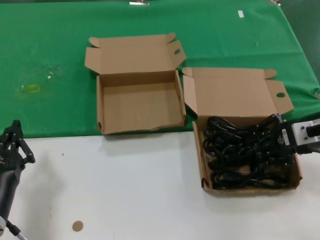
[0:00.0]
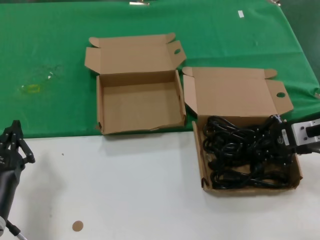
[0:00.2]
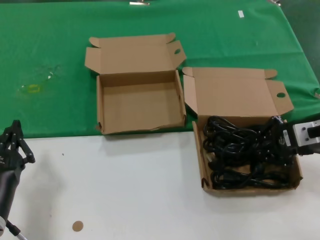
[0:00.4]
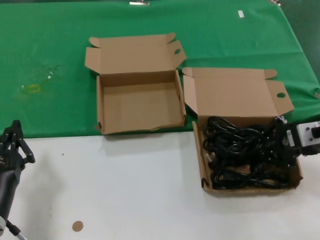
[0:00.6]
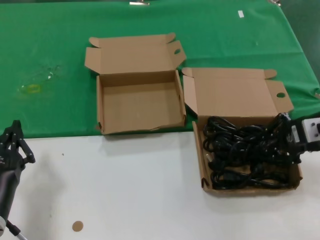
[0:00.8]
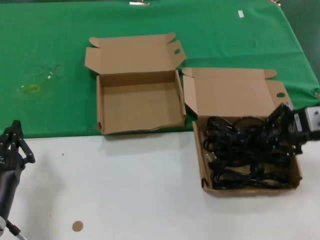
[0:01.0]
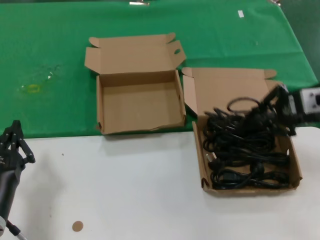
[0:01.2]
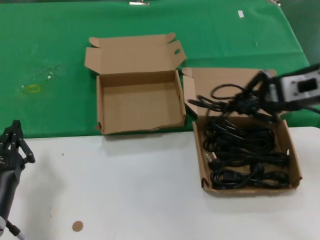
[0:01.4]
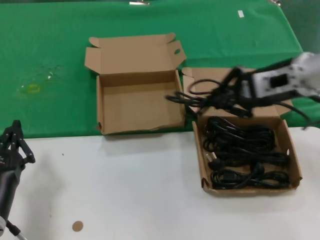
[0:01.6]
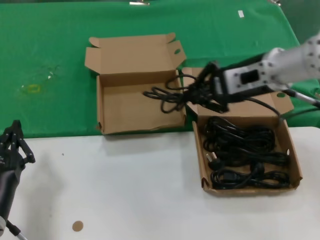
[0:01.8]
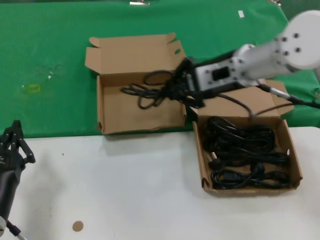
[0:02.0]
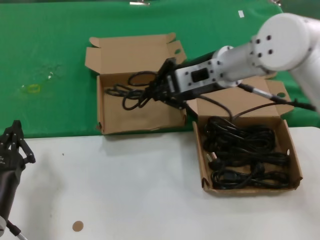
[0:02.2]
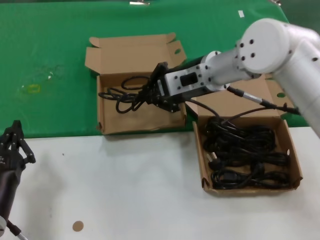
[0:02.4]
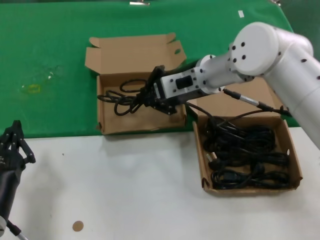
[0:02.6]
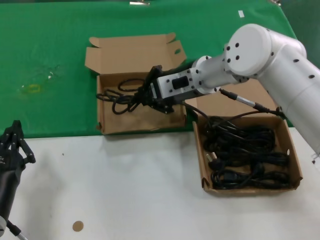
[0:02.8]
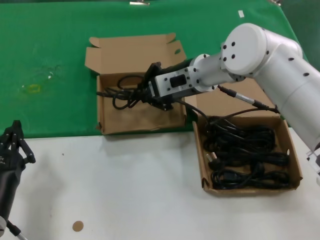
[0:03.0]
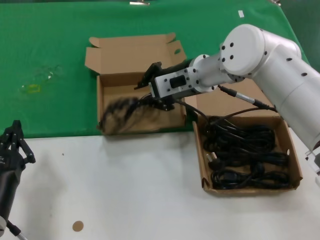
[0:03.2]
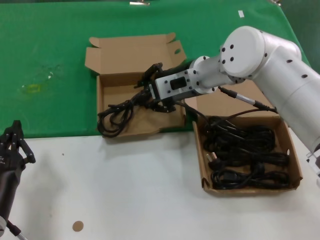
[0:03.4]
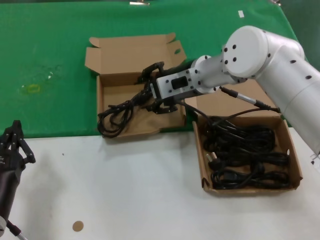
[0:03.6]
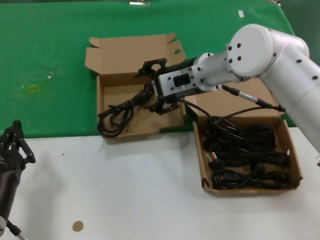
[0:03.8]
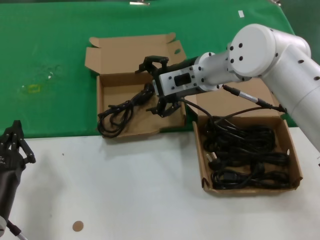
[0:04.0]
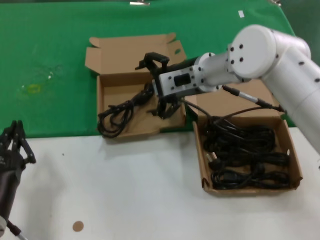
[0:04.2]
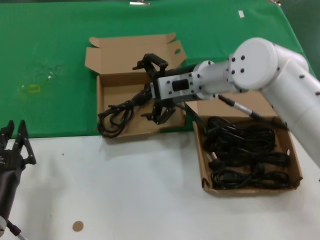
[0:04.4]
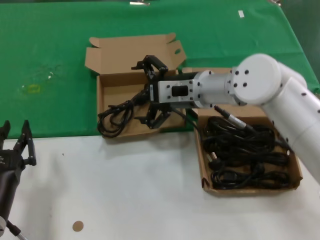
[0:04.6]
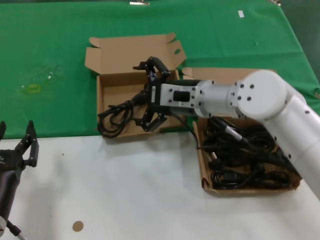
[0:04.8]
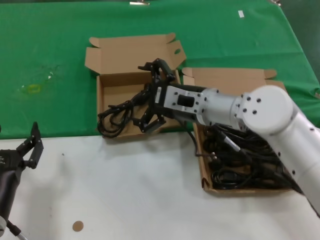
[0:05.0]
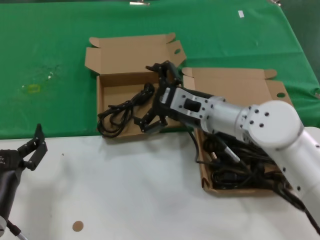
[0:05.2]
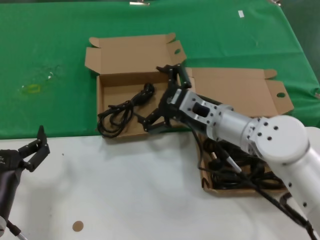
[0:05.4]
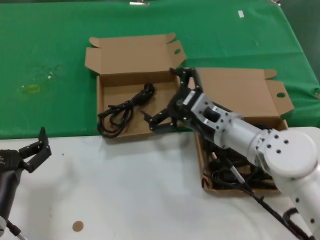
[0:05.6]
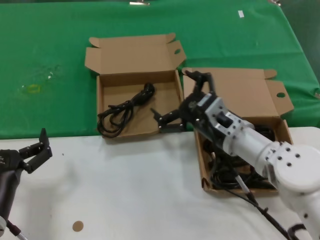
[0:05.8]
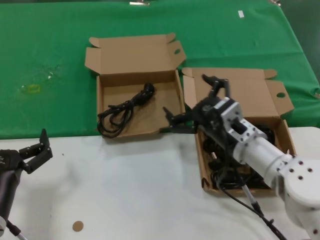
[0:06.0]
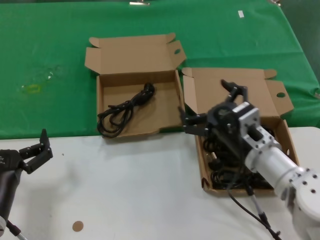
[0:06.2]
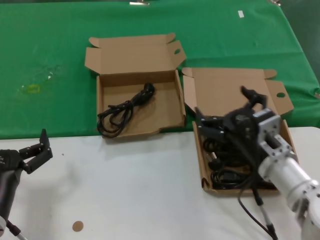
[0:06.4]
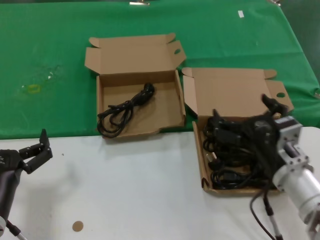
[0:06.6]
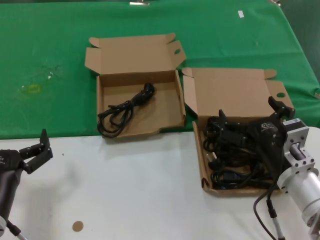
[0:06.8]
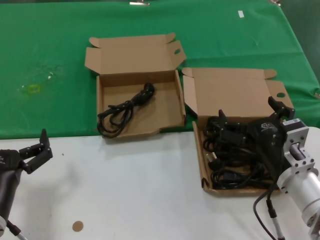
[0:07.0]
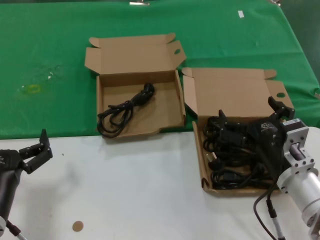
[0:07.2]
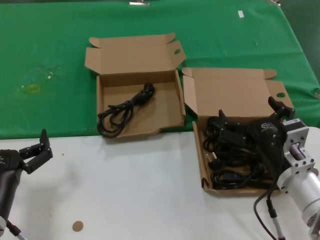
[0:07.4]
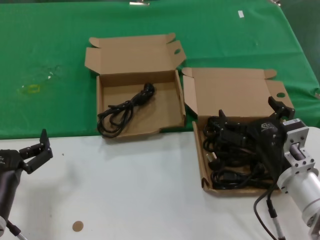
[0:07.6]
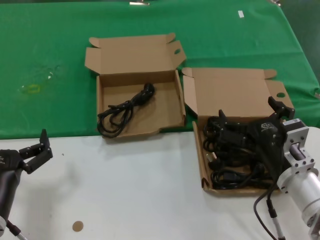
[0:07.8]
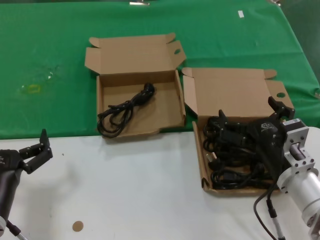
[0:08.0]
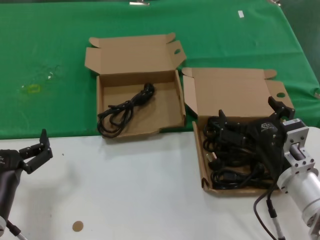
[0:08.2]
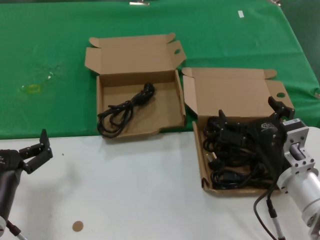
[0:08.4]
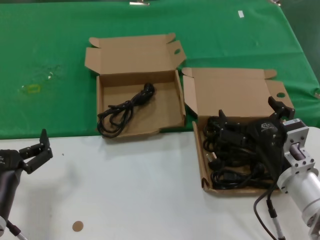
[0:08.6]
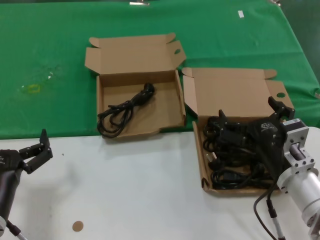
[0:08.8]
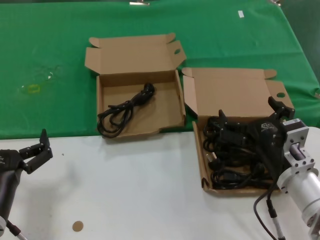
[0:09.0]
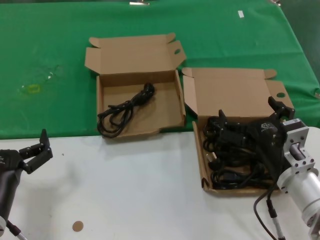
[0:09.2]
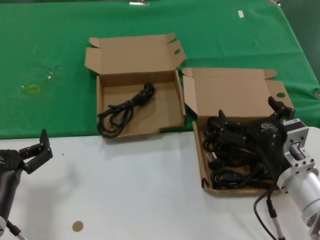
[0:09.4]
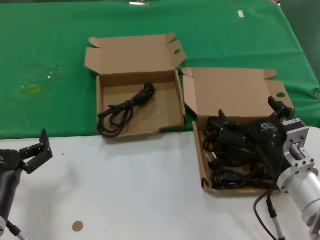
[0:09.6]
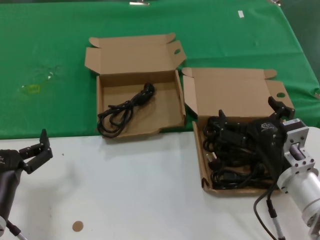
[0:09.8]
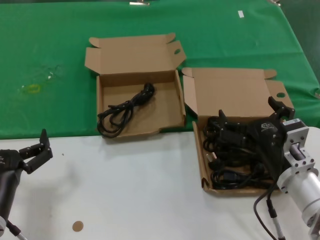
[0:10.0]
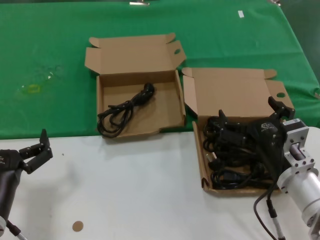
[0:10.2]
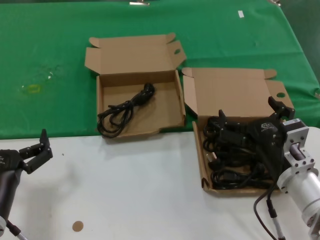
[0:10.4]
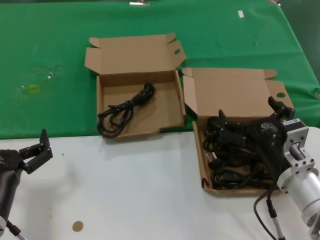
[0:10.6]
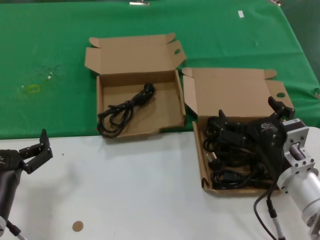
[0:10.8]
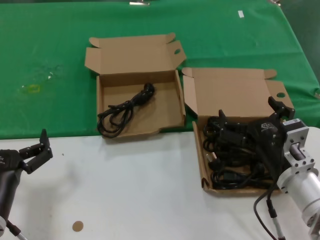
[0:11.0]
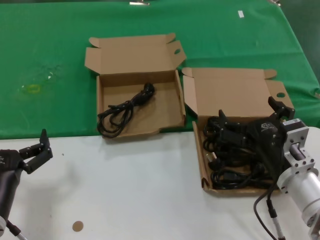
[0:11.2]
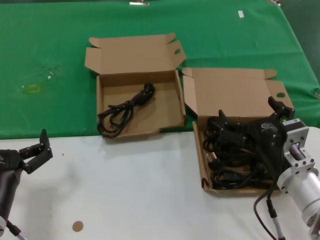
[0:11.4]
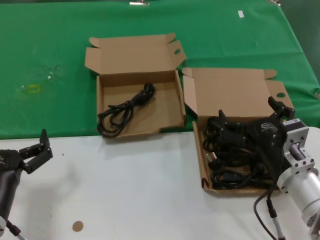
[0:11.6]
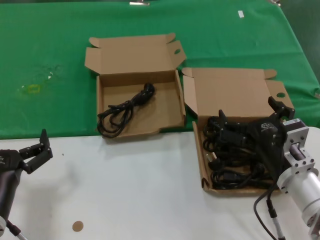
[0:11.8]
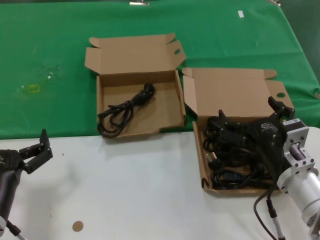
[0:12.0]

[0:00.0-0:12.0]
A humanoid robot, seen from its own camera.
Task of the whole recording: take the parts from the box containing them and put them into an empty box.
Step, 0:00.6 to 0:03.2: Place the data cable in the another box.
0:00.0 to 0:01.6: The right hand heads upward and to the left, covering about 10 cm.
0:01.6 to 0:03.0: The right hand is displaced to the left and forward by about 20 cm.
0:03.0 to 0:04.4: There are only small adjustments of the hands.
0:04.4 to 0:06.0: The right hand goes some 20 cm downward, backward and to the right.
0:06.0 to 0:07.6: The right hand shifts roughly 10 cm backward and to the right.
0:07.6 to 0:12.0: Neither hand changes place.

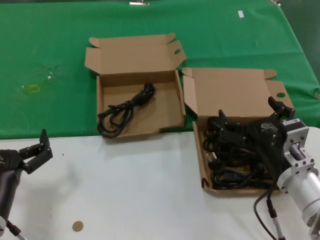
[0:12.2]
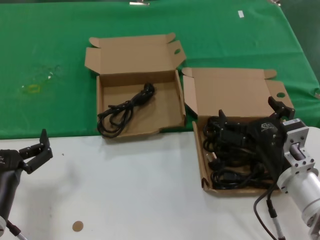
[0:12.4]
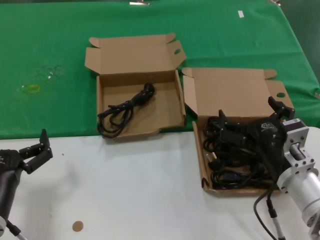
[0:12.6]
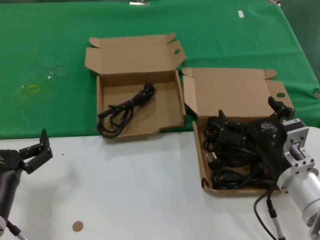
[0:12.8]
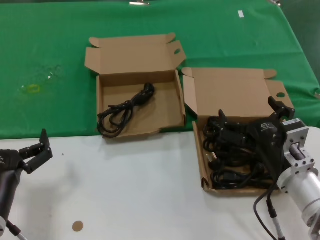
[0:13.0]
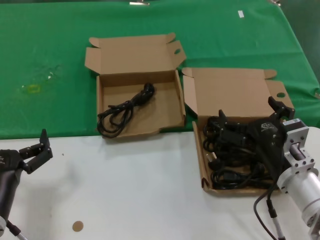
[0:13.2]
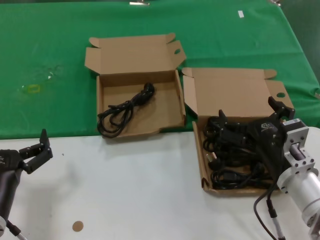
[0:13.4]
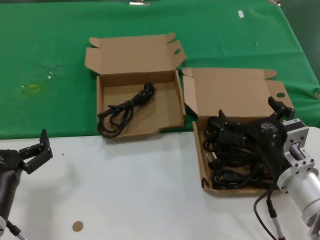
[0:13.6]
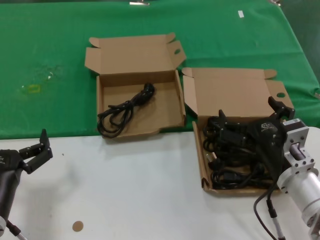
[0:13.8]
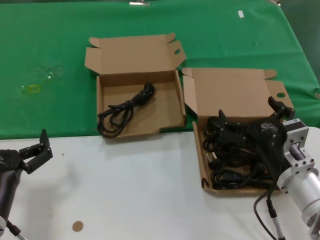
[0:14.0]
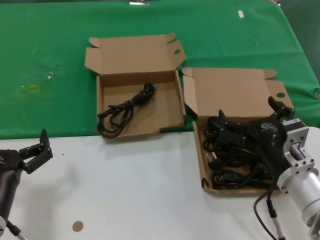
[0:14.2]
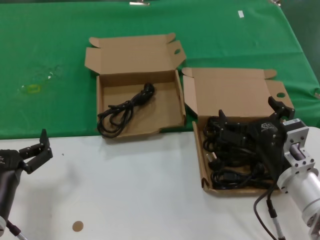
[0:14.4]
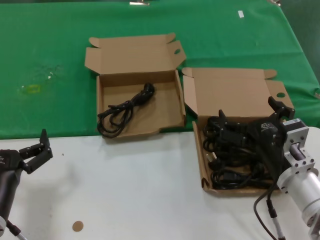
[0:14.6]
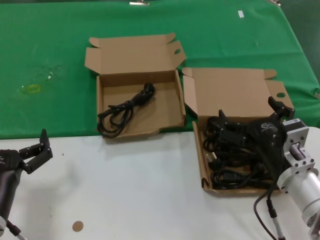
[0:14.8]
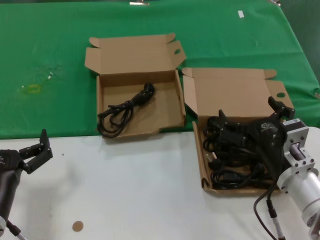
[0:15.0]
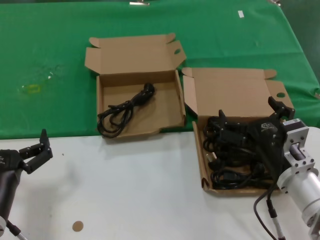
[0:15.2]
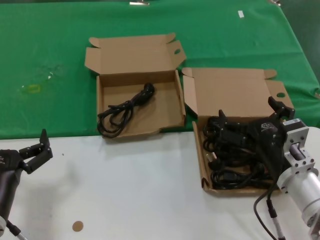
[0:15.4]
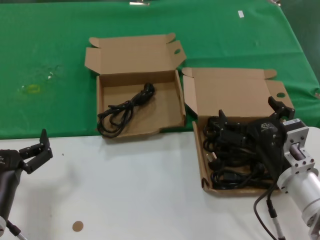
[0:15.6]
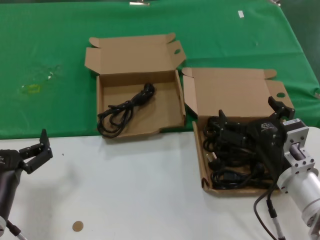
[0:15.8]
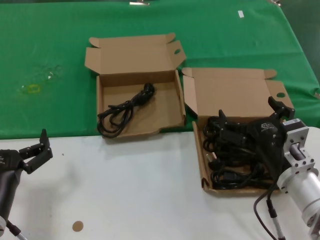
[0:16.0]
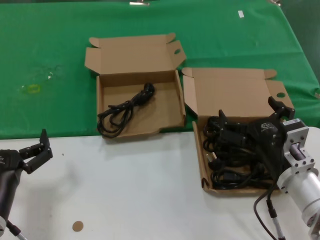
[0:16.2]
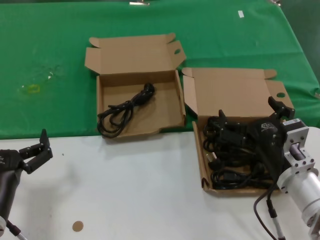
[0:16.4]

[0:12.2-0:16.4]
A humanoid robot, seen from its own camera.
Task of the whole recording: take the parts from the box containing them and put them into an empty box.
0:12.2 to 0:16.4: Neither hand changes place.

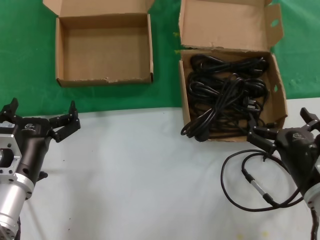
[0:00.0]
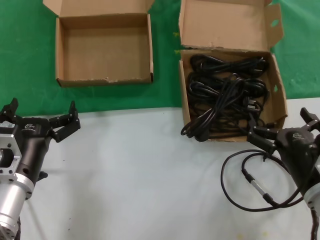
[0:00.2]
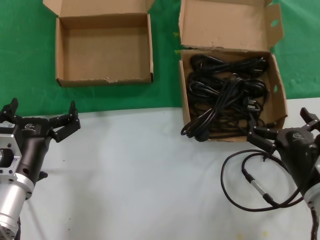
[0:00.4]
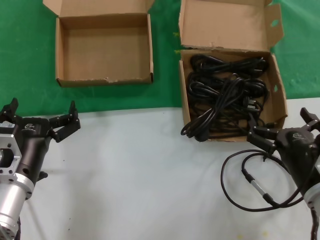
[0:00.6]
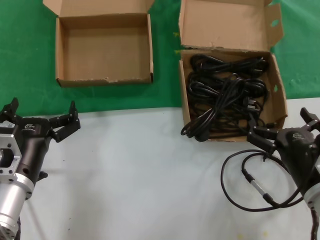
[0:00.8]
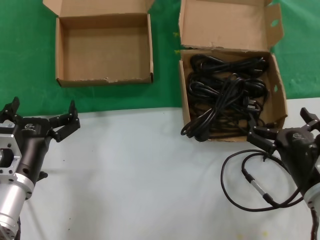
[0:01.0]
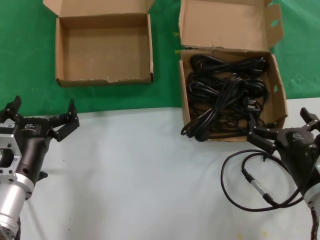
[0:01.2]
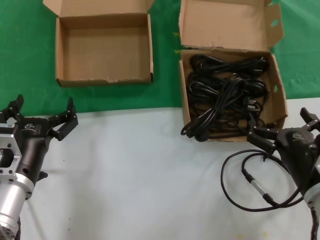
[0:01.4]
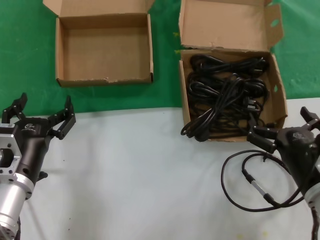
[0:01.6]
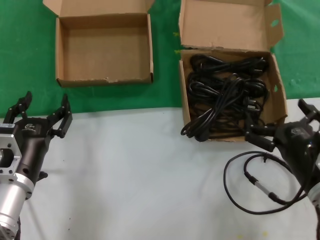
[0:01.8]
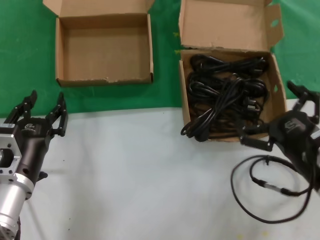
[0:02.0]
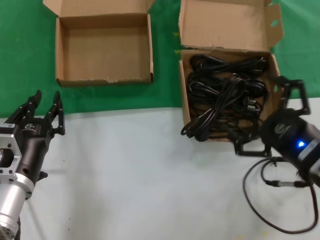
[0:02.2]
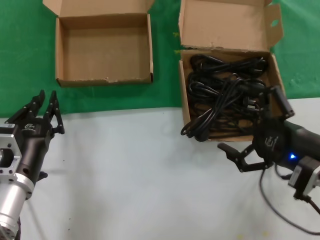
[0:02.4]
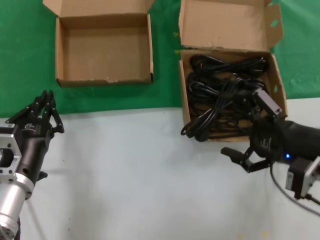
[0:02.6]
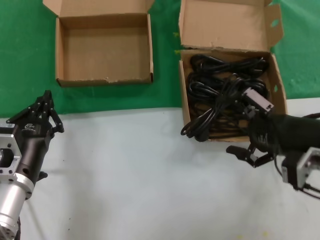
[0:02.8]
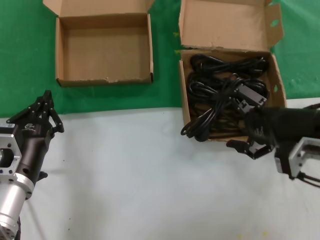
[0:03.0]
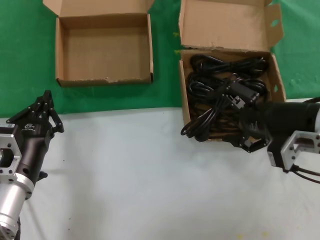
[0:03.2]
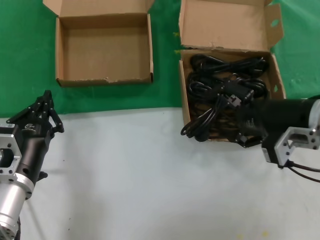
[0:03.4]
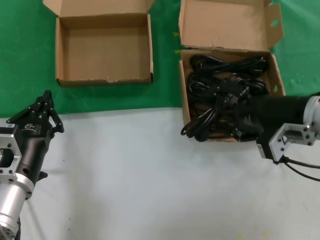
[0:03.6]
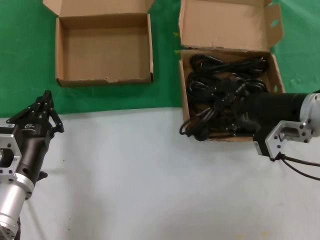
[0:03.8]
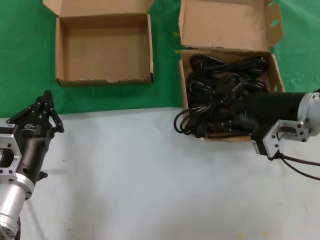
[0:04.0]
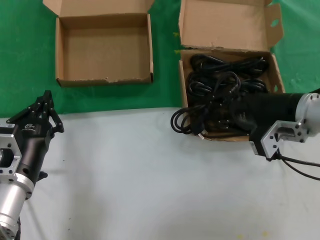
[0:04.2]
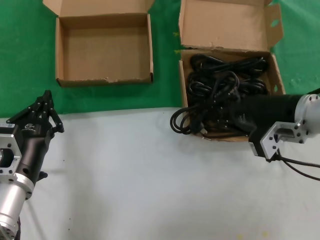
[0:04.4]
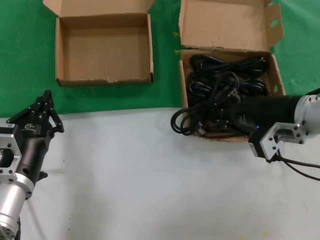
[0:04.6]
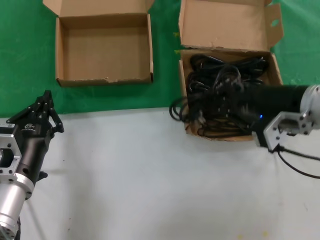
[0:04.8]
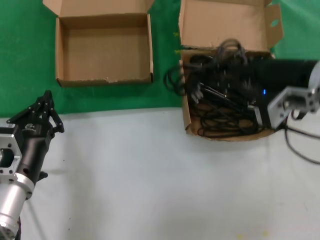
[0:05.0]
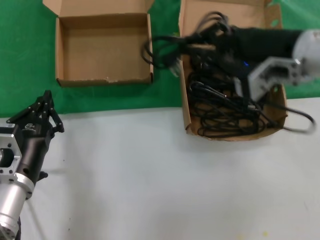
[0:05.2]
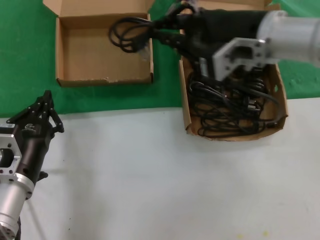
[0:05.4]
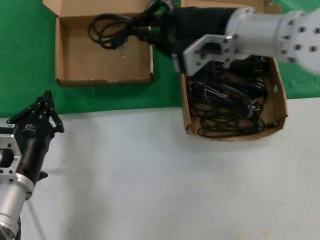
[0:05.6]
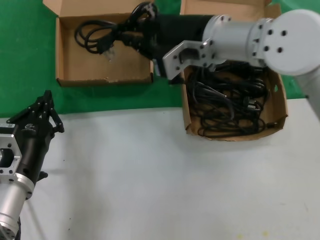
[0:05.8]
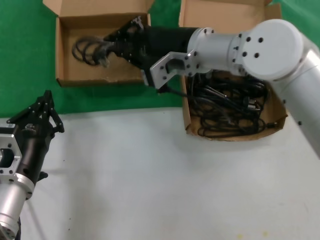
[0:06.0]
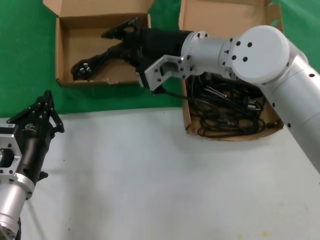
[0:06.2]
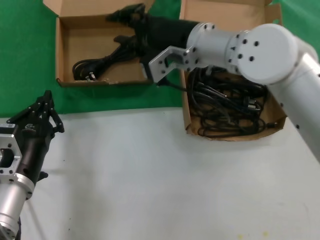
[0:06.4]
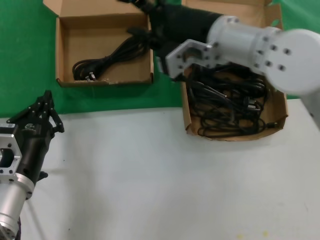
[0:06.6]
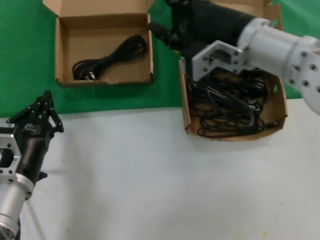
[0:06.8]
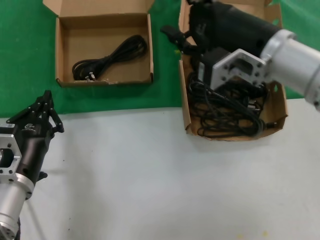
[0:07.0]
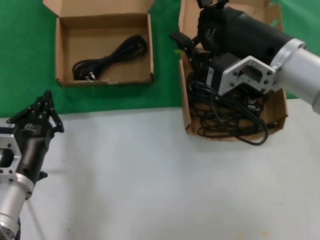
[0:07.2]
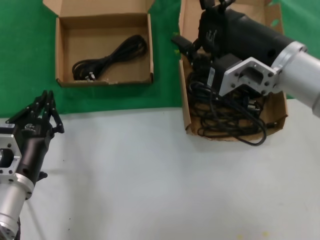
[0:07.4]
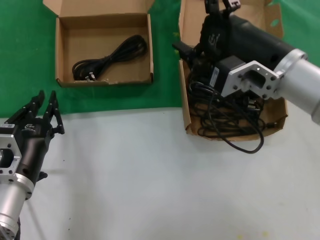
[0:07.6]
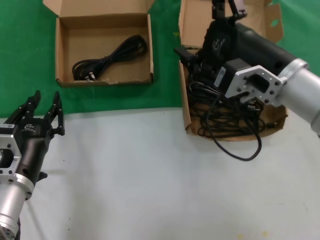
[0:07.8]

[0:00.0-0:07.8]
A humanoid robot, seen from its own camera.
Task of the whole recording: take the parts from the box containing them and put them into an empty box.
Step, 0:00.0 to 0:04.2: Grasp the data cable.
Step, 0:04.6 to 0:06.0: Place the data cable in the another box.
0:00.0 to 0:01.6: Neither hand changes place.
0:01.6 to 0:03.2: The right hand is displaced upward and forward by about 15 cm.
0:03.2 to 0:04.6: There are only small adjustments of the hands.
0:04.6 to 0:06.2: The right hand is displaced to the left and forward by roughly 20 cm.
0:06.2 to 0:07.8: The right hand shifts some 15 cm backward and to the right.
